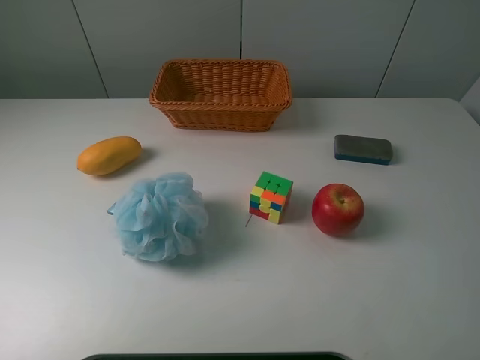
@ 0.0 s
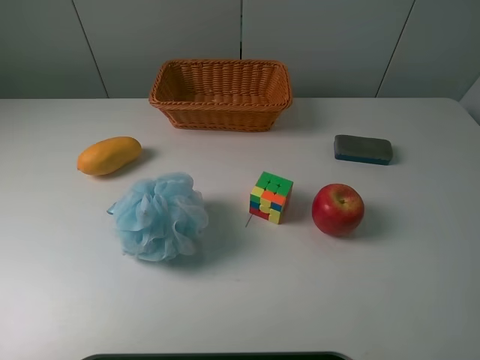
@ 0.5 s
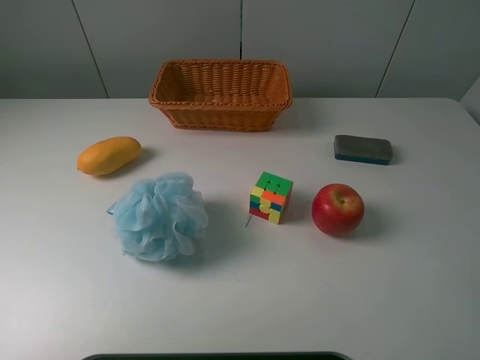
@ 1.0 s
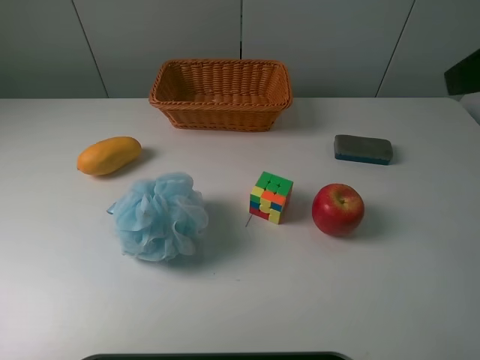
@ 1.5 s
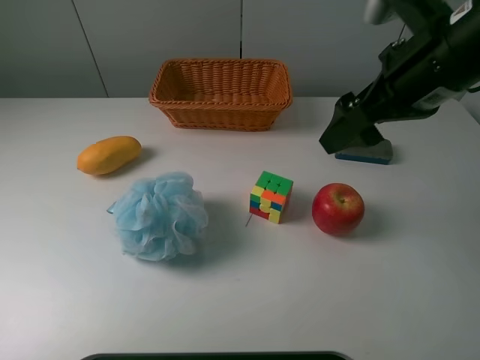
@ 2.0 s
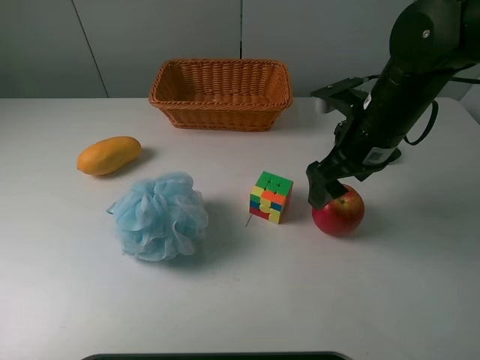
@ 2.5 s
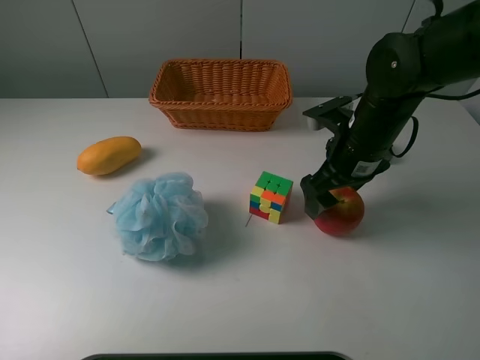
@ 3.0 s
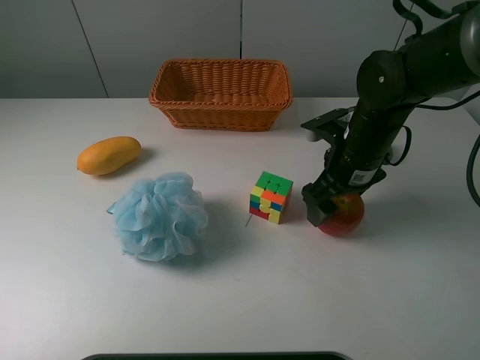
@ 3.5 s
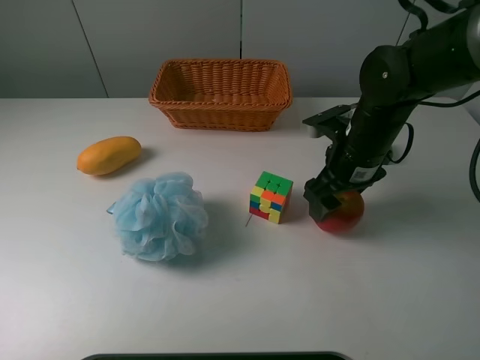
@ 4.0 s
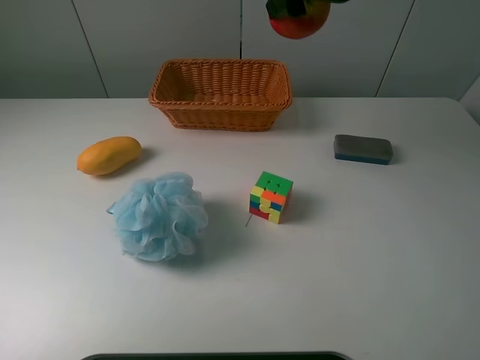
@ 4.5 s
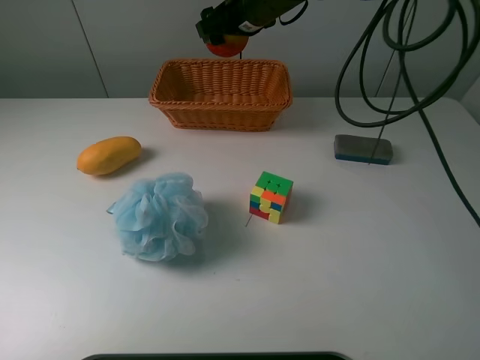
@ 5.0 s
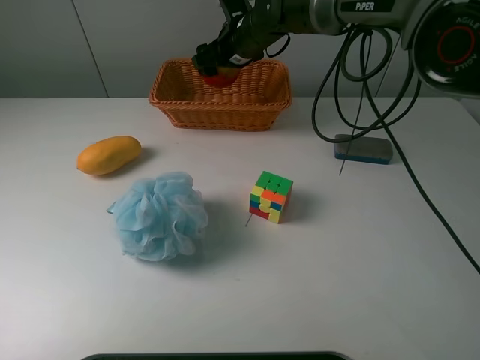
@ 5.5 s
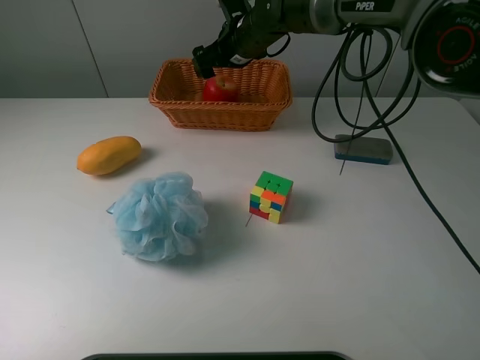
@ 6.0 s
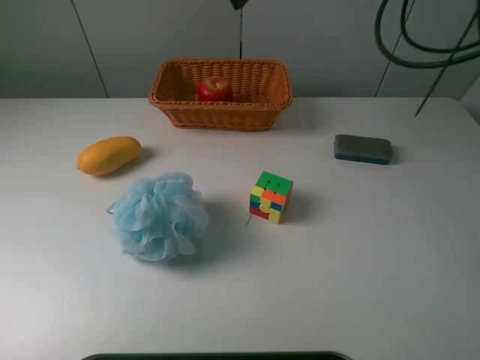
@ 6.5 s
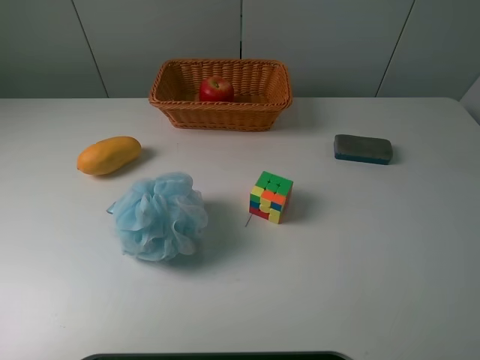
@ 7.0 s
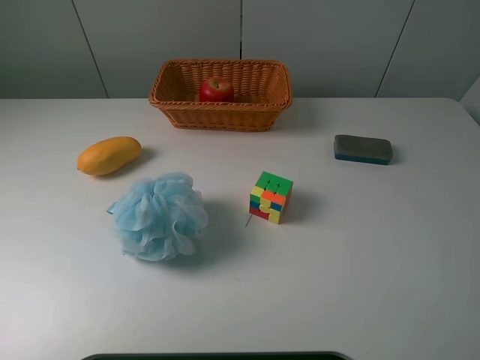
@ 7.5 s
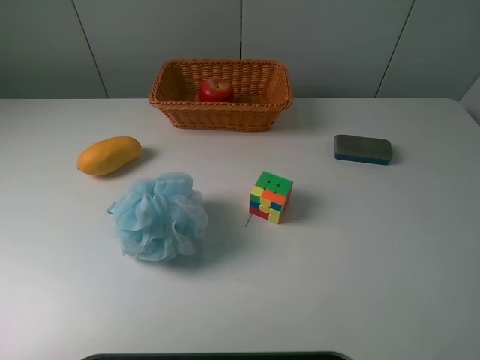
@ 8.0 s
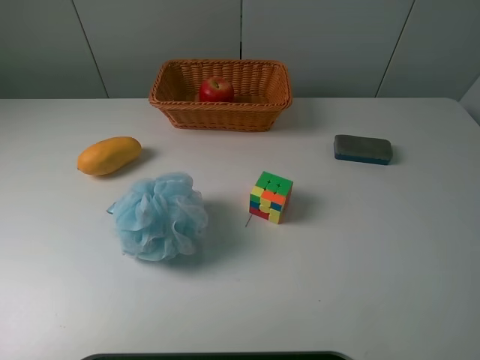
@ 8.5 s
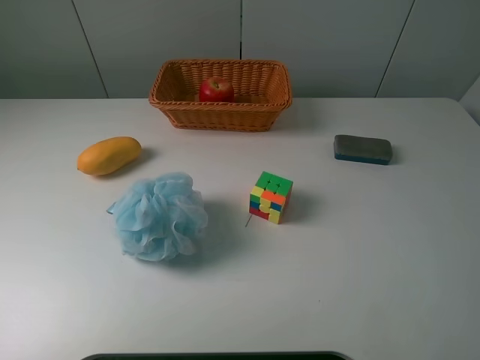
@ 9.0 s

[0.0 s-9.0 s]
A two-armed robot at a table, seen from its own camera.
Task of the whole recording: use a picker to grab the item closest to the cube and place it in the basket.
Step, 0.0 to 3.5 s: Grasp the apple with the right gripper.
Step, 4.0 to 5.5 s: Place the apple into the basket with the right gripper.
0.0 to 2.0 s: The right gripper heads forward and to the left, covering about 25 cm.
2.0 to 4.5 s: The right gripper goes some 15 cm forward and to the left, reaches some 15 cm downward, then returns, and closes.
4.5 to 7.0 s: The right gripper shifts roughly 20 cm upward and to the right, and opens its fingers.
